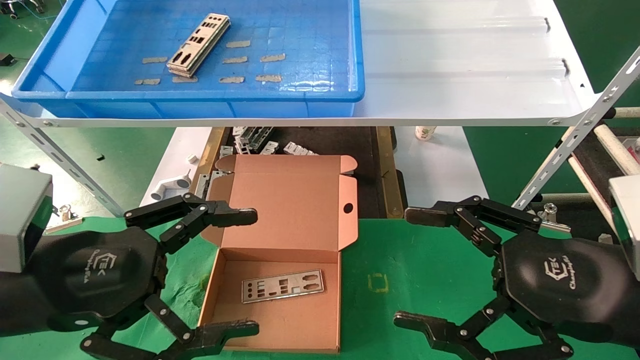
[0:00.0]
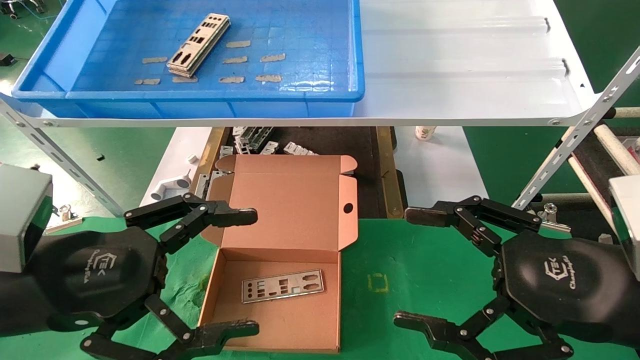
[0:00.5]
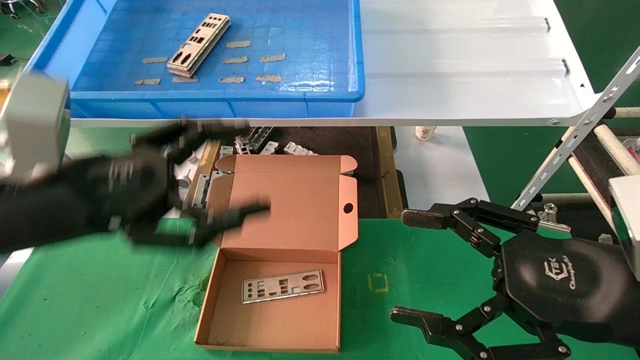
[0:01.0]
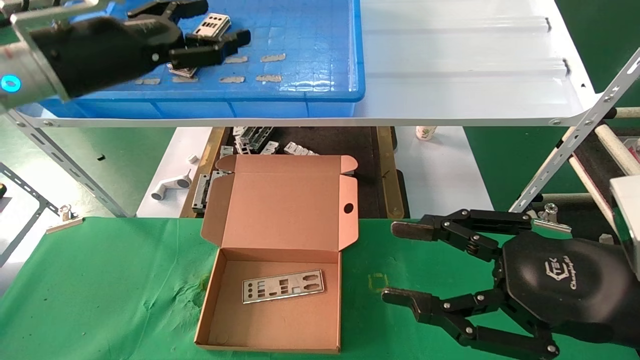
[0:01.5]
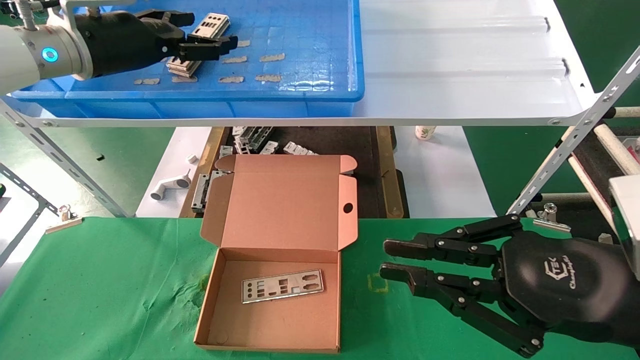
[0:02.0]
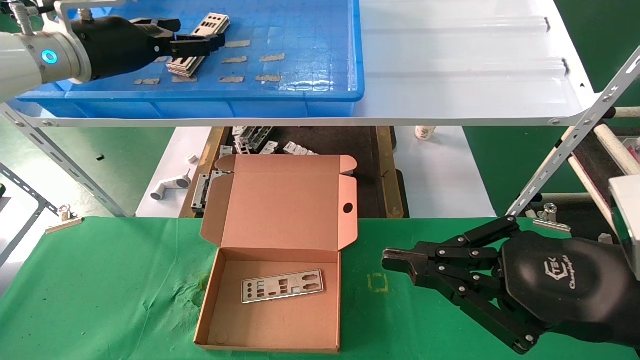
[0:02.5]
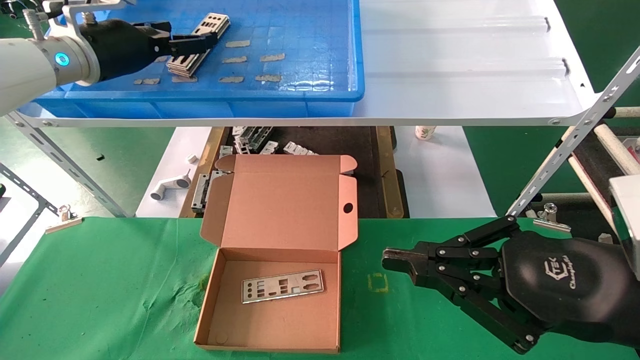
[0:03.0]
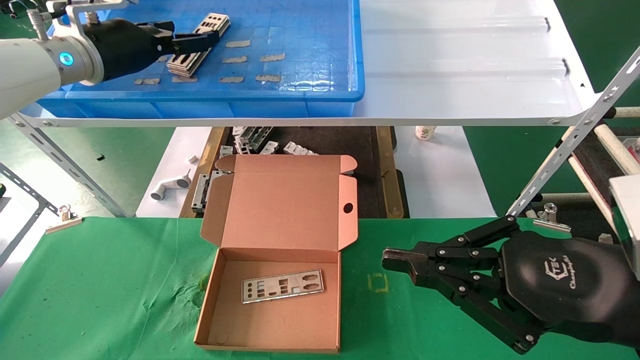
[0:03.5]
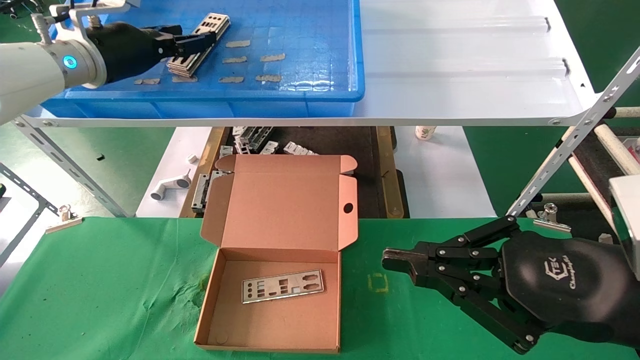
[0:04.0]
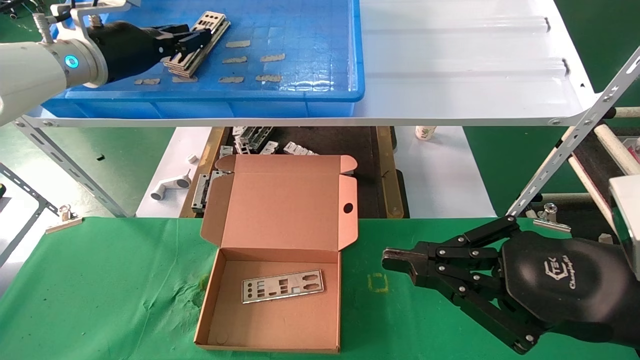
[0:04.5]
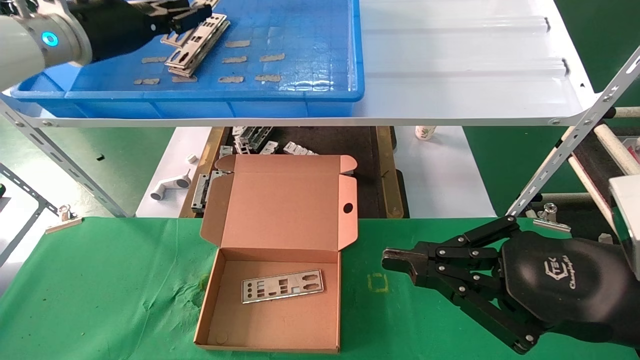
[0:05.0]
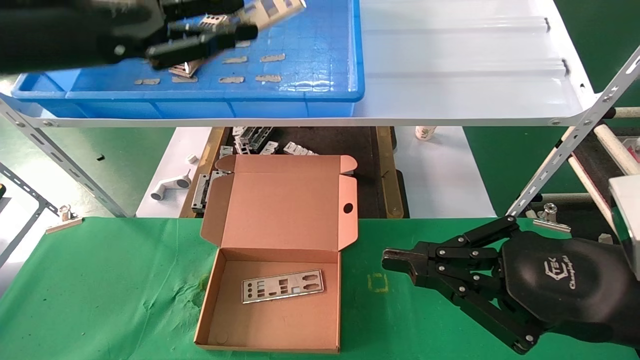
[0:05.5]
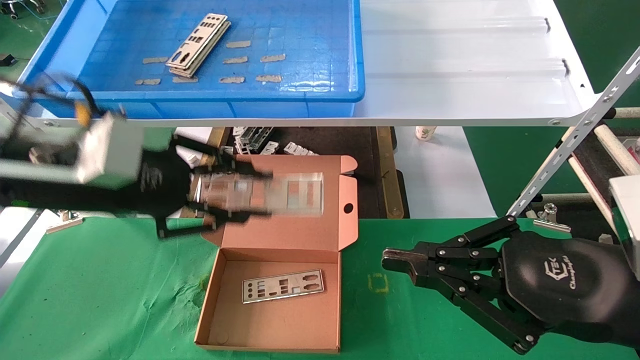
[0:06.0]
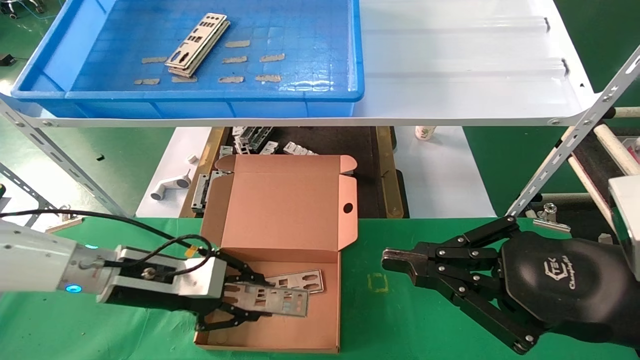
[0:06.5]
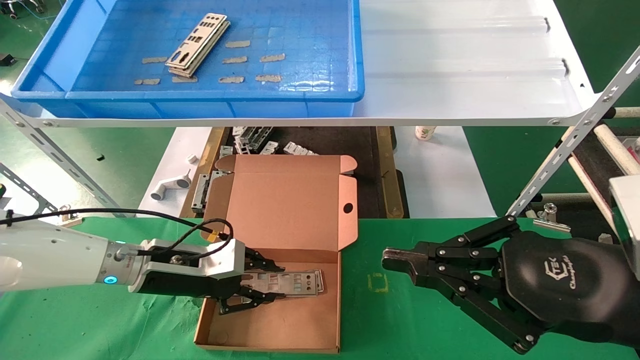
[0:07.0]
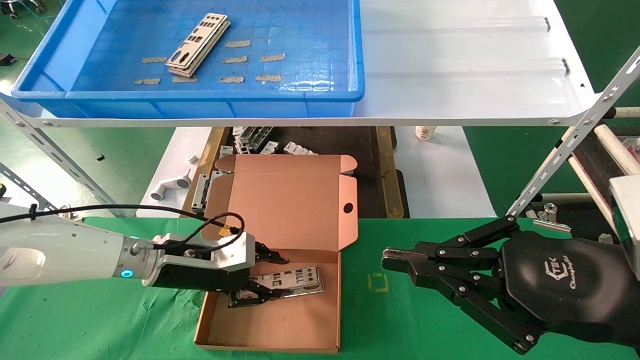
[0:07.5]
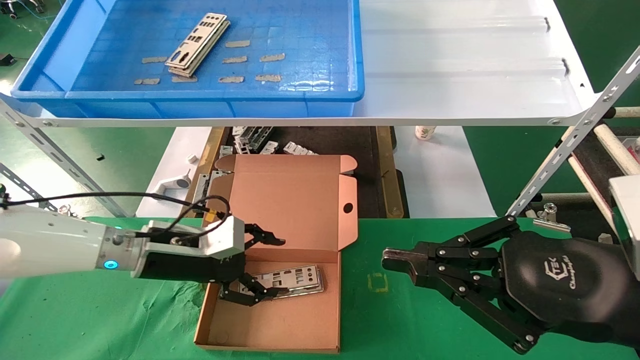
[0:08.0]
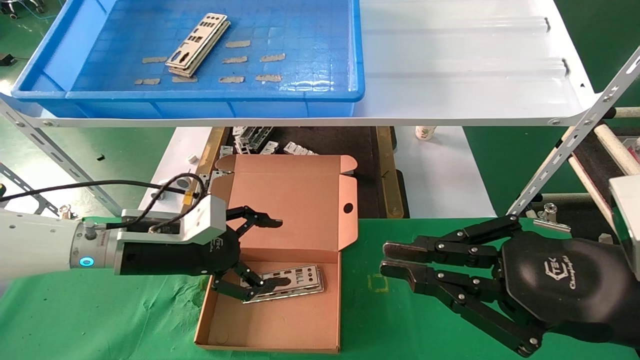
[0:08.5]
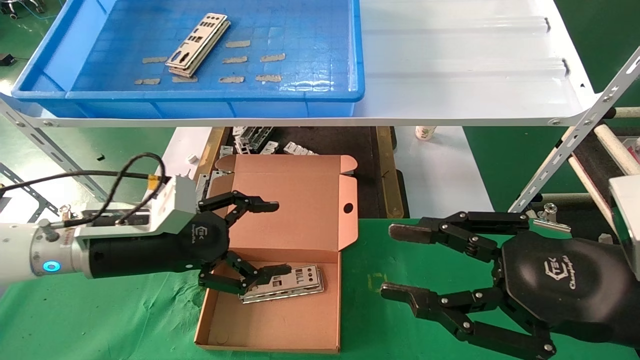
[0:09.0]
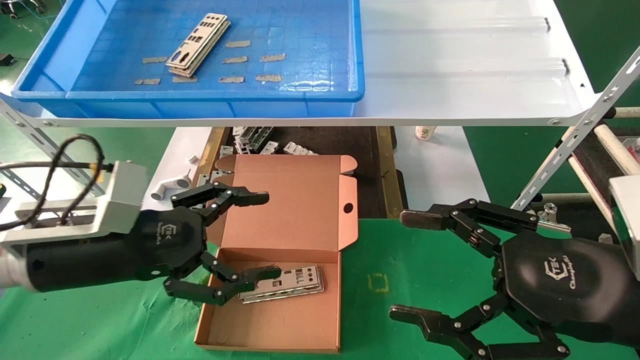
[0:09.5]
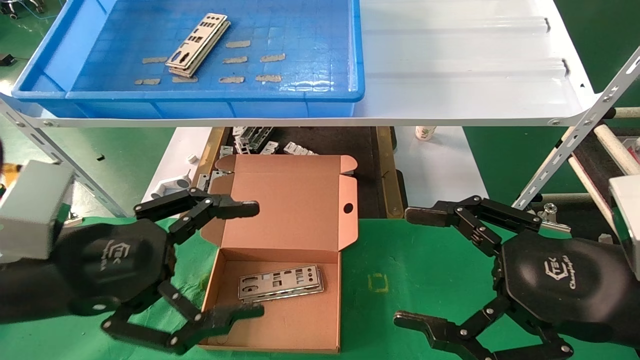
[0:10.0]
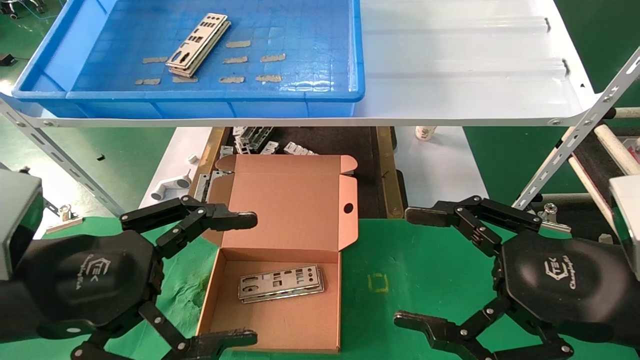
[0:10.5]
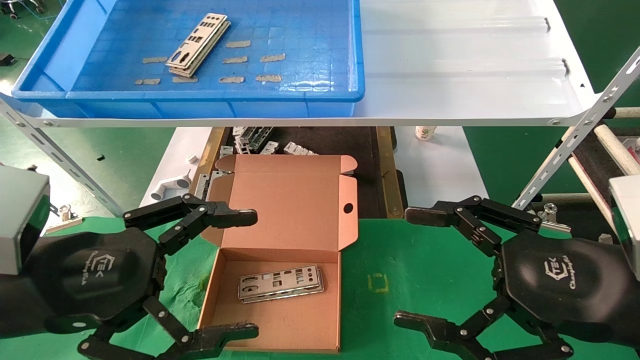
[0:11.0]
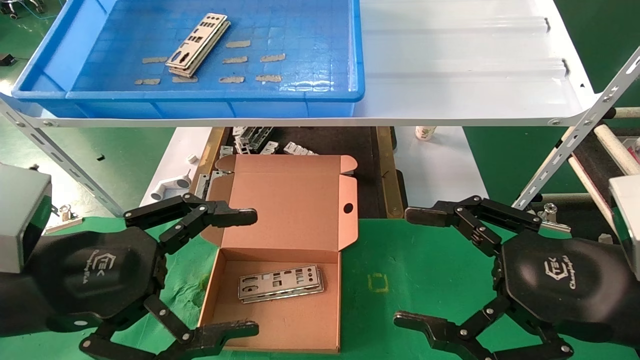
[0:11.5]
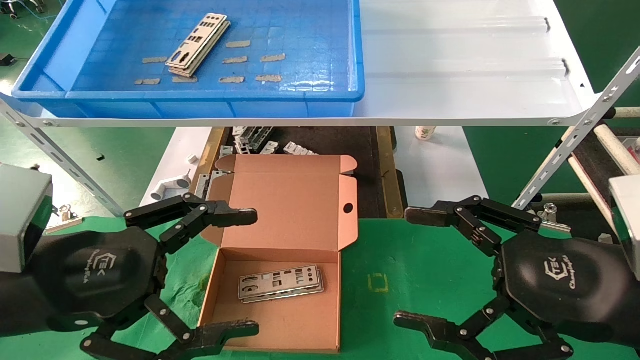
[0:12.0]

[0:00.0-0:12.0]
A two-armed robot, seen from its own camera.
Task of the whole recording: pick up the parts on the tray and put them in the cardboard box.
Step, 0:01.5 to 0:05.0: Pick up the IO bracket from the container box.
Step, 0:05.5 to 0:07.5: Place the IO bracket into the ingredient slot.
0:00.0 to 0:02.0: The left gripper shifts some 30 cm forward and upward, while the right gripper closes its fingers.
0:02.0 to 0:04.0: The left gripper closes.
0:04.0 to 0:06.0: The left gripper goes about 20 cm backward and downward, and closes.
0:06.0 to 0:08.0: The left gripper goes approximately 15 cm downward and forward, and opens up.
0:08.0 to 0:10.0: The left gripper is displaced backward and upward by approximately 20 cm, and opens its fingers, while the right gripper opens.
0:10.0 to 0:12.0: The grippers stay close to where they were, moving slightly.

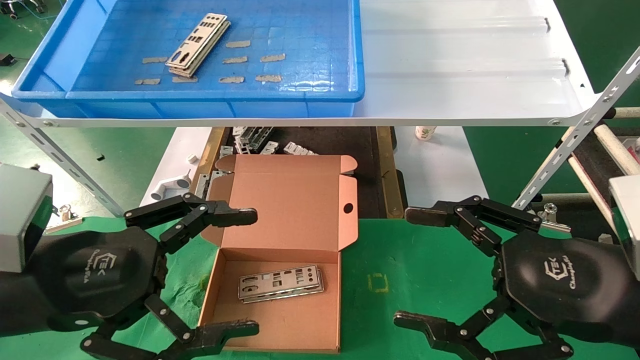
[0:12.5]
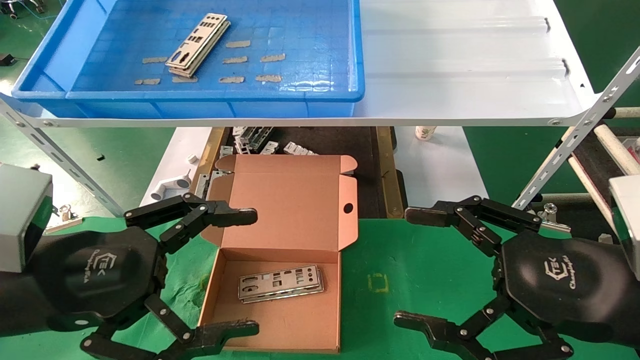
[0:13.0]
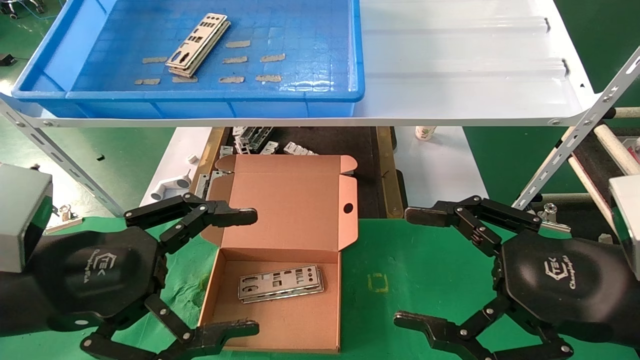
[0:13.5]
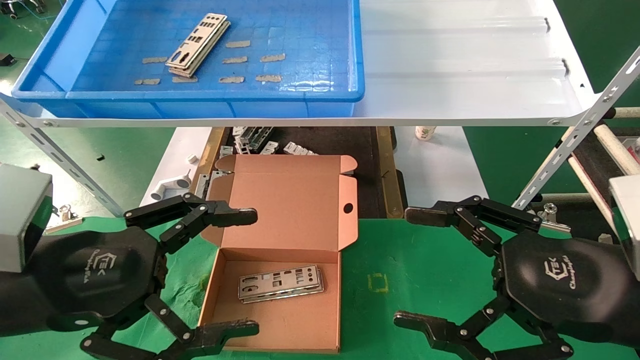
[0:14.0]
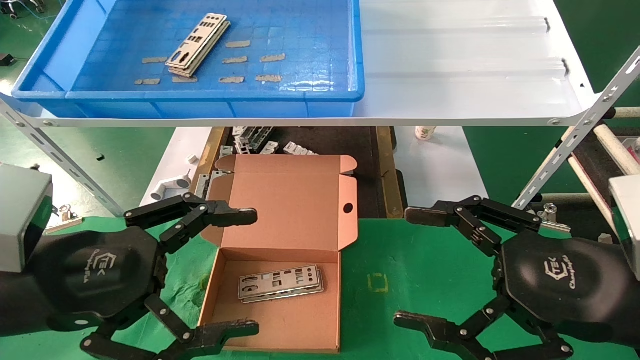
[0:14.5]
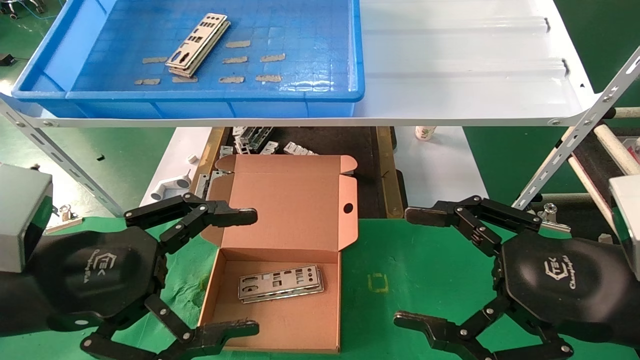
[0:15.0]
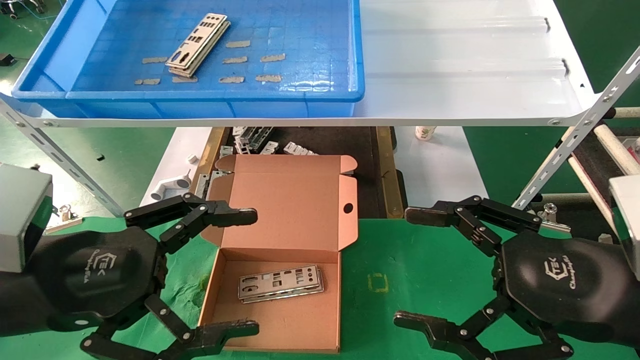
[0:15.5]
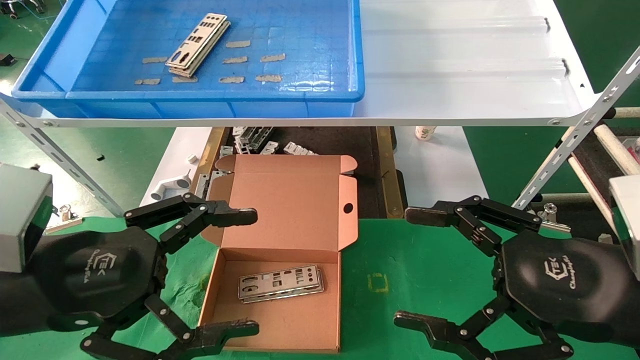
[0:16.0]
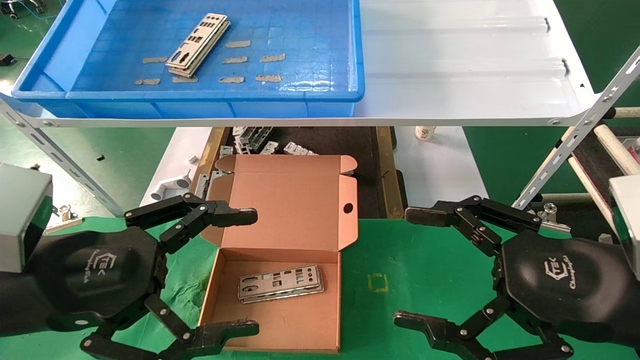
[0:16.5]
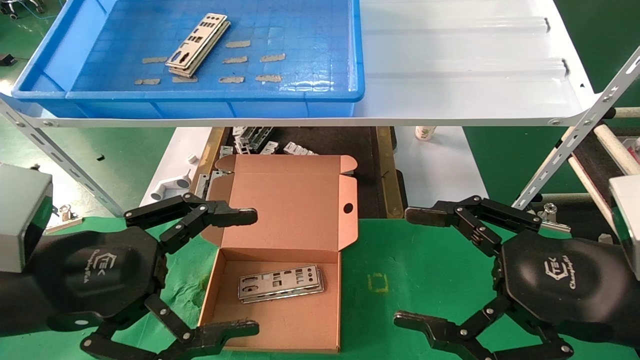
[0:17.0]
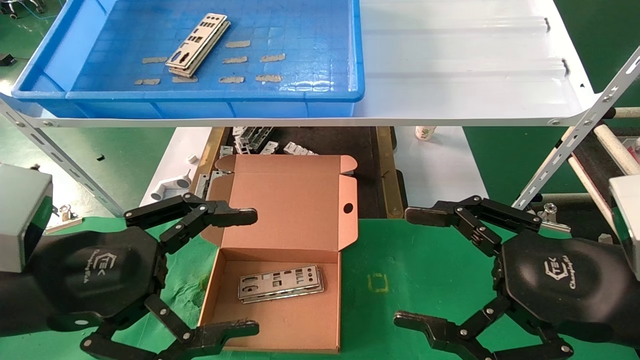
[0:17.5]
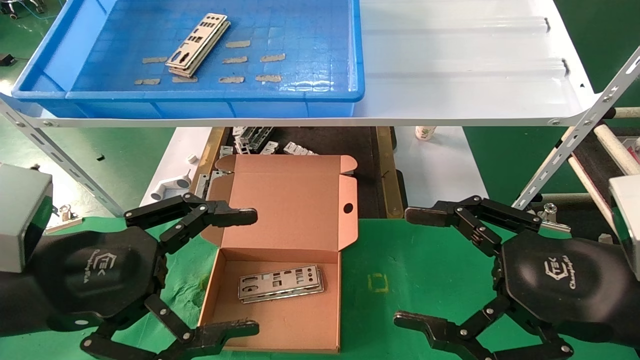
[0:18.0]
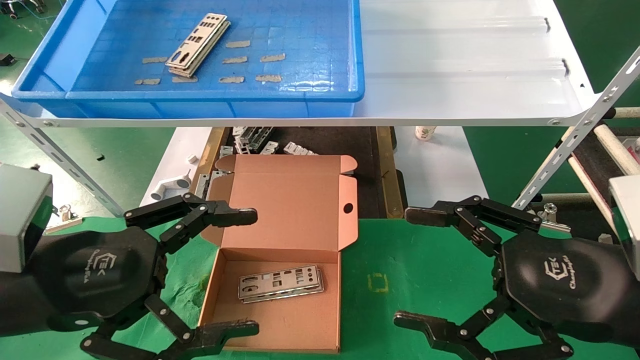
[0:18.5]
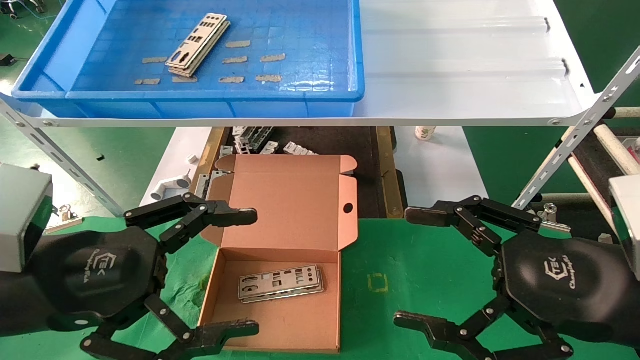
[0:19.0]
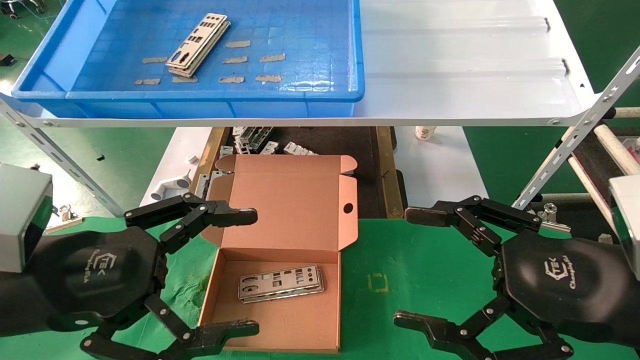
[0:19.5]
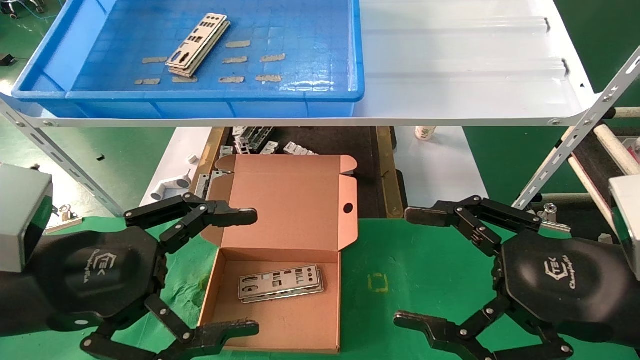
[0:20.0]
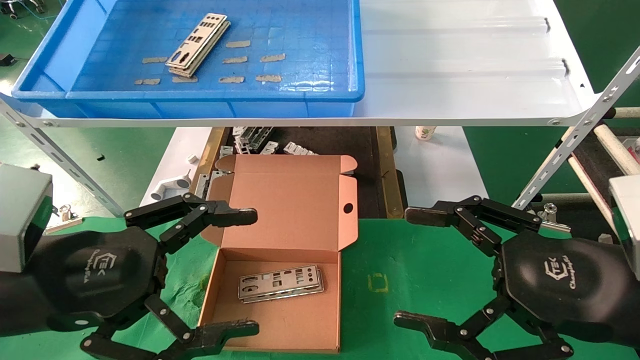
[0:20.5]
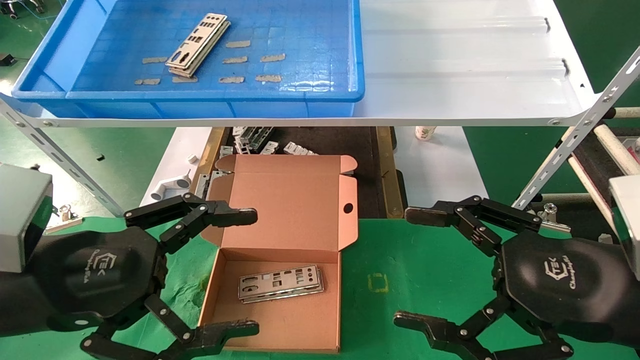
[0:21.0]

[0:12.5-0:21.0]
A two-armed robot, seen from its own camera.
Task of the whole recording: pick up the parts on the tray and put them in the cardboard box.
0:12.5 to 0:21.0: Both grippers stay about where they are.
